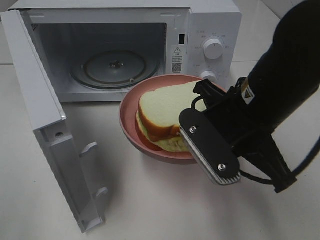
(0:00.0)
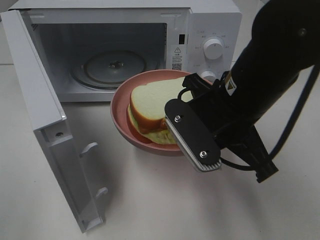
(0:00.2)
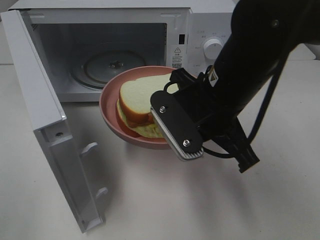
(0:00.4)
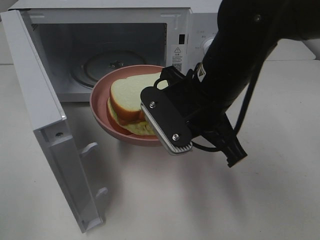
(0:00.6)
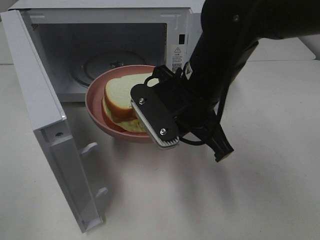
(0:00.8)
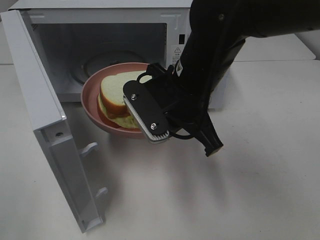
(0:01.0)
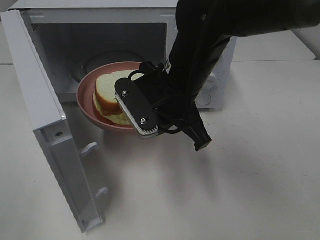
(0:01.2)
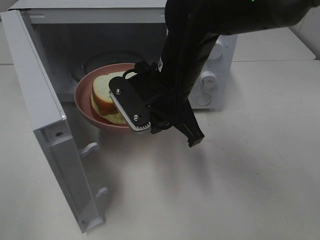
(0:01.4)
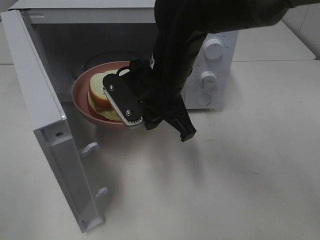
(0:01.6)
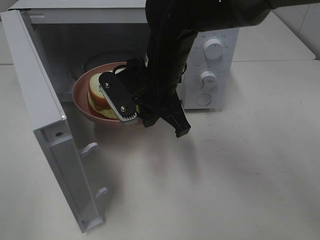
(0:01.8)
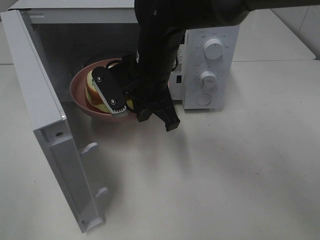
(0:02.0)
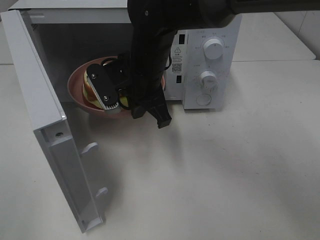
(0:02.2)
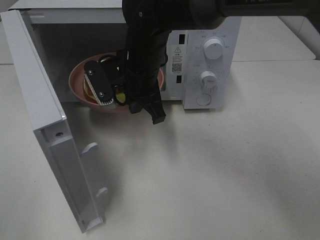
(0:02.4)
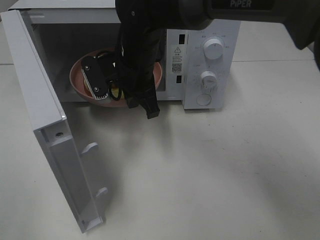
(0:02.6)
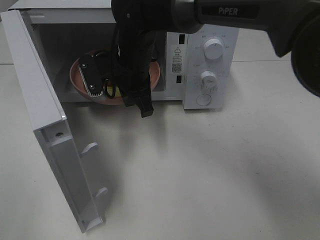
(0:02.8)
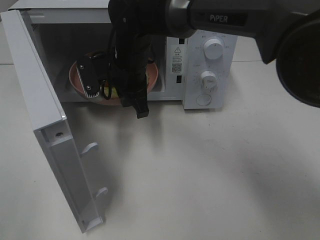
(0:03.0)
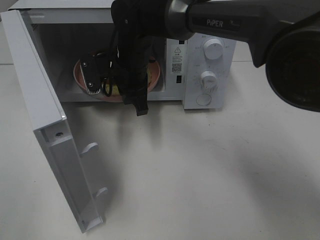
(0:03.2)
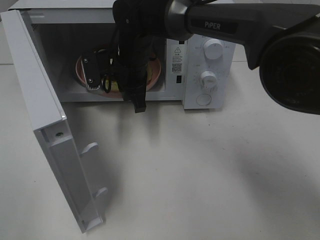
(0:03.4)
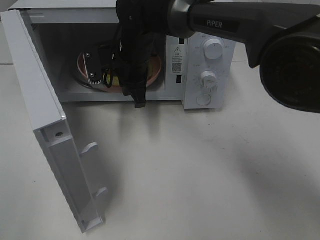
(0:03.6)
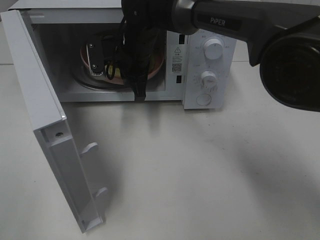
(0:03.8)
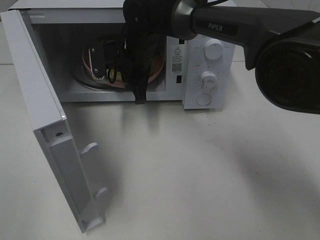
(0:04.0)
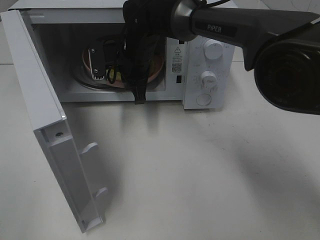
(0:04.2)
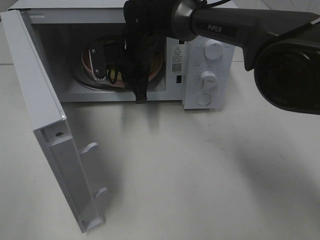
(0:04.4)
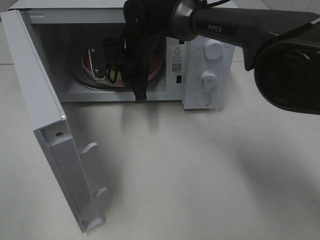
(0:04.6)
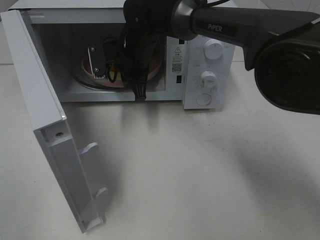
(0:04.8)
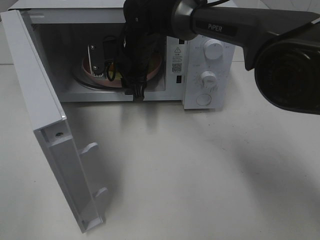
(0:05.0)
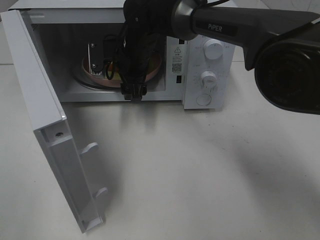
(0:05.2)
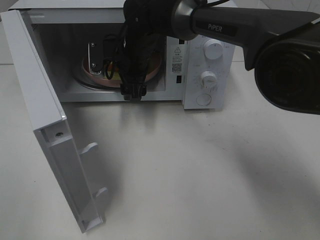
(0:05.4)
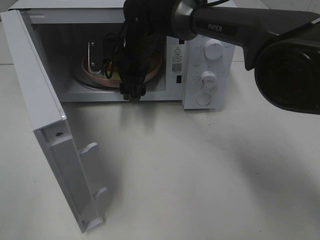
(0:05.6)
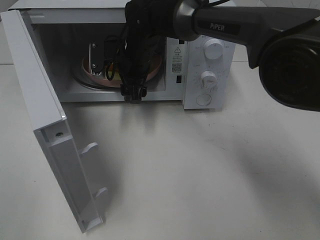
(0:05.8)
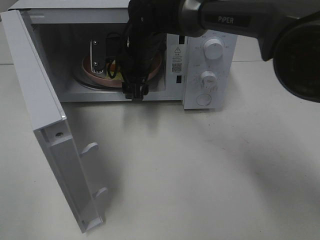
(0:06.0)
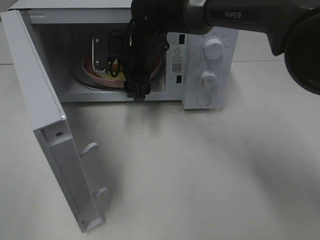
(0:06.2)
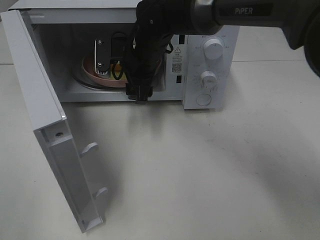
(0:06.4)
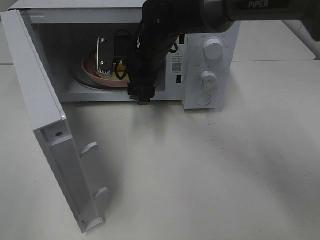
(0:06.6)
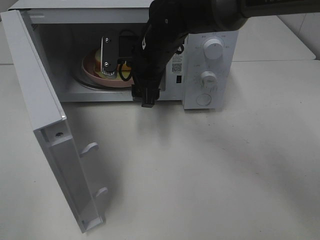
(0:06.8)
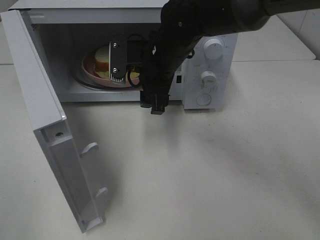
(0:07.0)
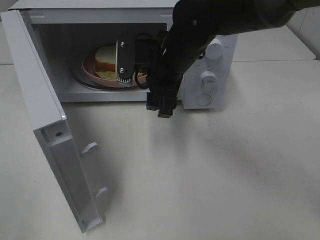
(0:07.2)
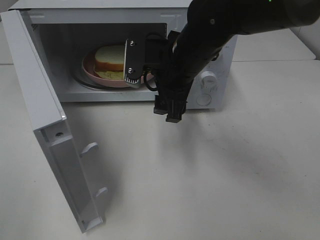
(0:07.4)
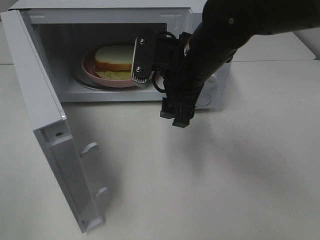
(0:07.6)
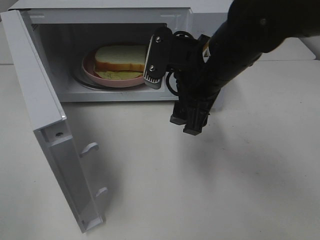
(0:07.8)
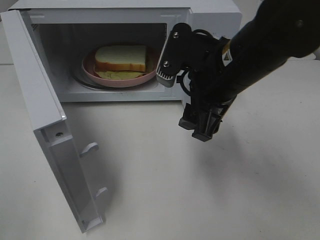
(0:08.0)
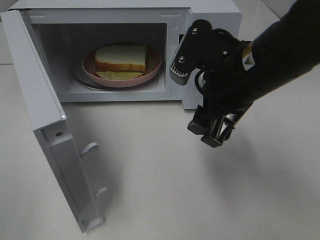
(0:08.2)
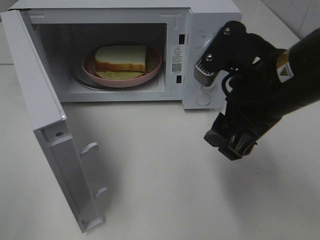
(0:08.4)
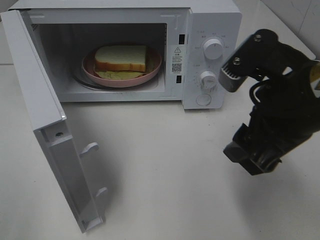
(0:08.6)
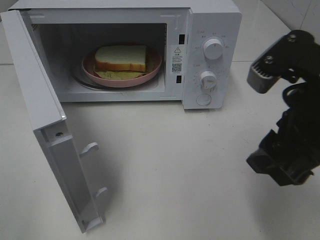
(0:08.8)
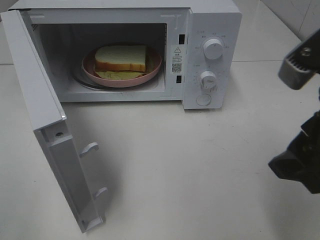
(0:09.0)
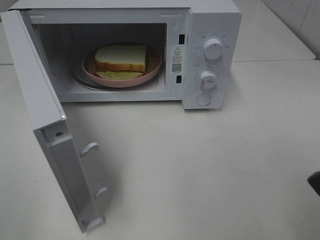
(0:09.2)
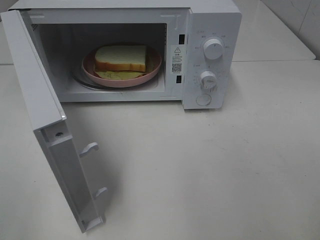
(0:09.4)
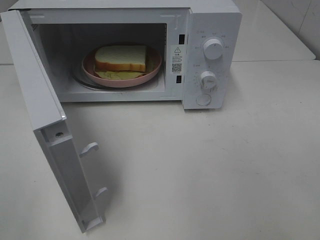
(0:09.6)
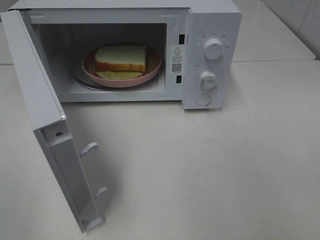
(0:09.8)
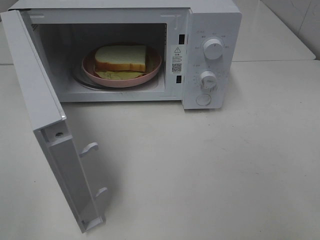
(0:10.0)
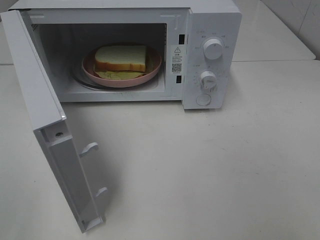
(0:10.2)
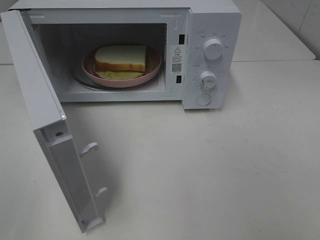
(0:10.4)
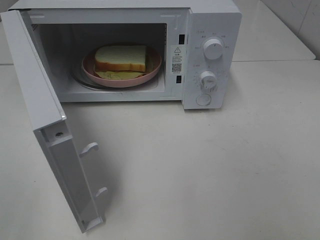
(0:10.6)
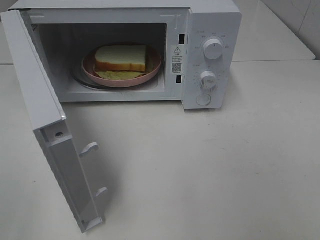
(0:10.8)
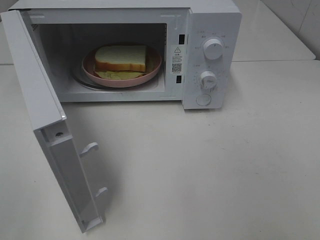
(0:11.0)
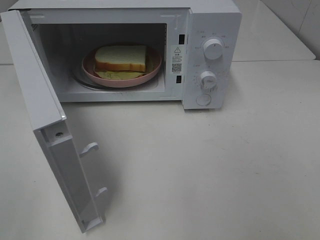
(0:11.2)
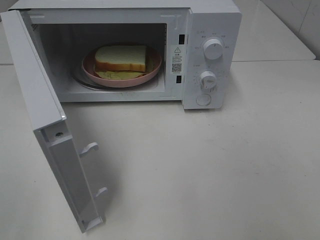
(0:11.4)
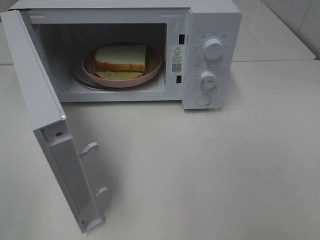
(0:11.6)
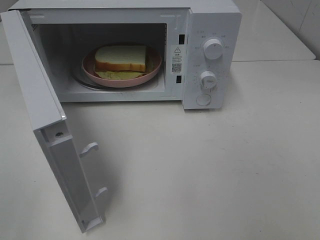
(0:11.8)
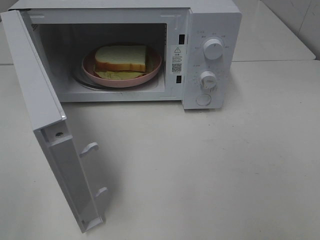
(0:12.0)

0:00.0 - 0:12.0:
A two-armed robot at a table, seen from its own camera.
Task of the whole recording: Heat Sandwich.
Step, 0:00.0 - 0:06.4: Right hand: place the plate in the microwave.
0:00.0 - 0:01.6: The right gripper travels forward and to the left by about 15 cm.
0:01.6 - 0:03.0: The right gripper is displaced forward and to the left by approximately 10 cm.
0:03.0 - 0:04.4: The right gripper shifts by about 5 cm.
0:04.4 - 0:06.0: The right gripper opens up.
0:06.0 - 0:07.6: The right gripper is displaced backward and to the right by roughly 15 cm.
0:07.6 - 0:09.0: The right gripper heads backward and to the right, covering roughly 20 cm.
0:09.0 - 0:10.4: The right gripper is displaced backward and to the right by some 15 cm.

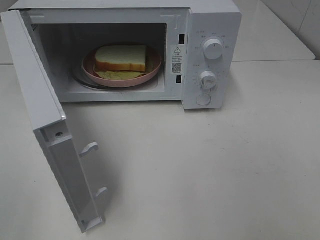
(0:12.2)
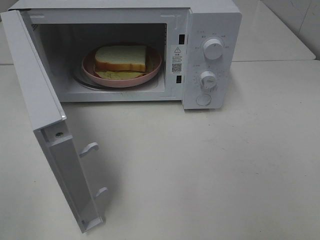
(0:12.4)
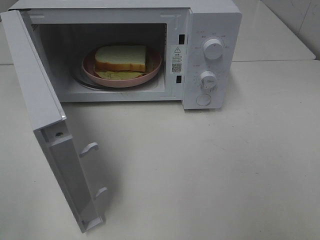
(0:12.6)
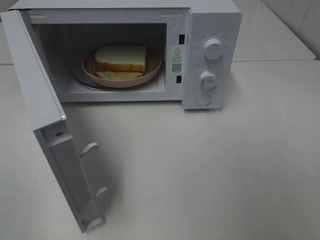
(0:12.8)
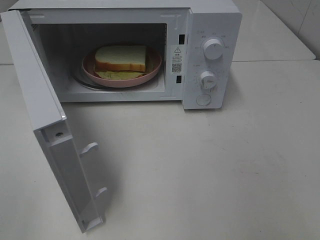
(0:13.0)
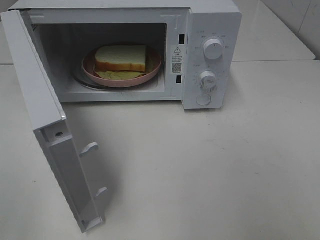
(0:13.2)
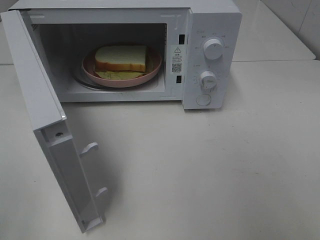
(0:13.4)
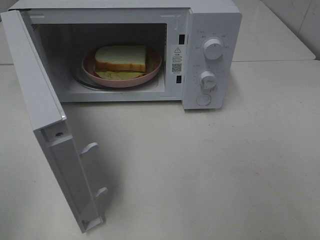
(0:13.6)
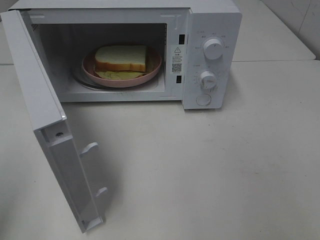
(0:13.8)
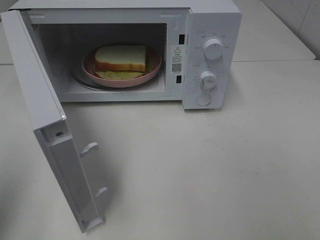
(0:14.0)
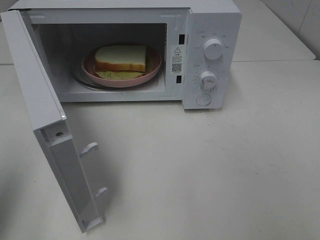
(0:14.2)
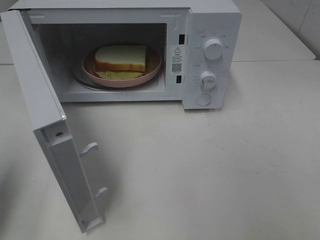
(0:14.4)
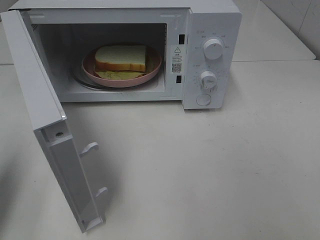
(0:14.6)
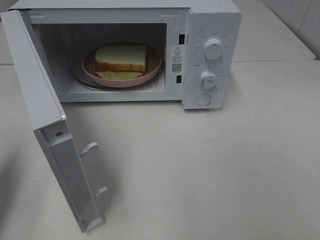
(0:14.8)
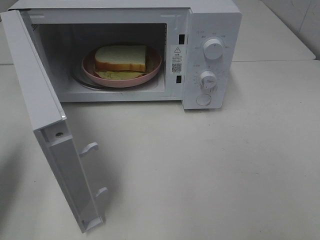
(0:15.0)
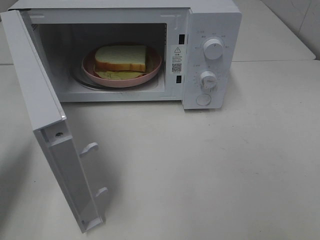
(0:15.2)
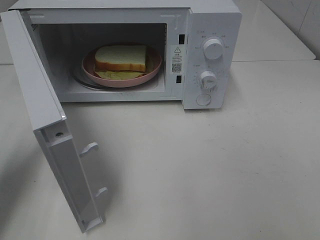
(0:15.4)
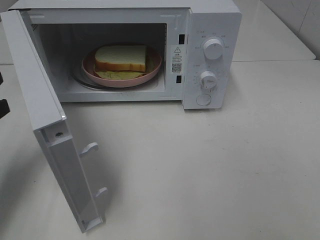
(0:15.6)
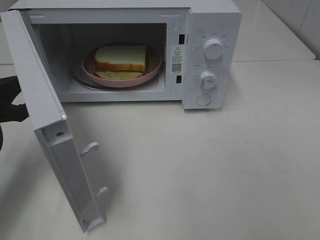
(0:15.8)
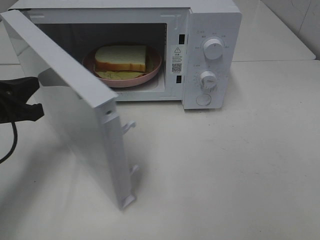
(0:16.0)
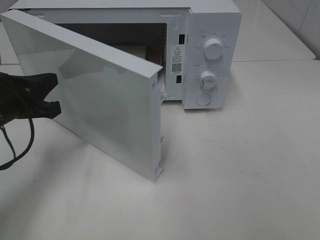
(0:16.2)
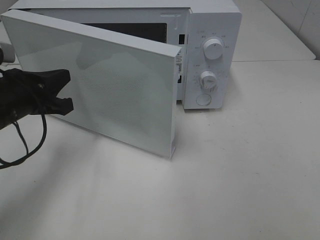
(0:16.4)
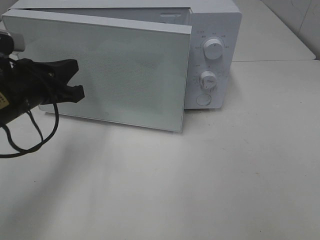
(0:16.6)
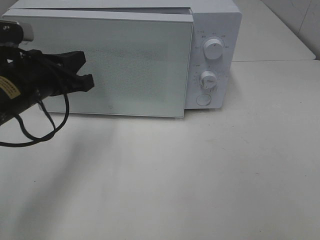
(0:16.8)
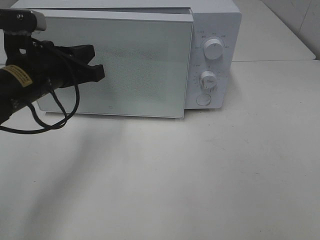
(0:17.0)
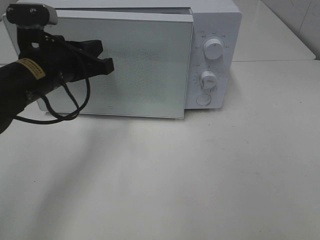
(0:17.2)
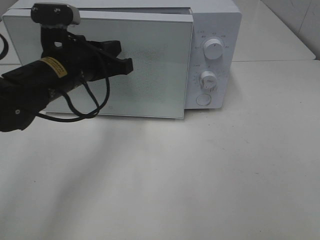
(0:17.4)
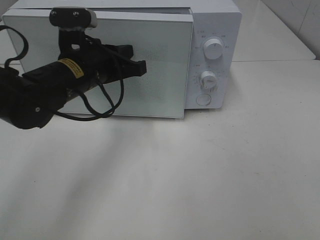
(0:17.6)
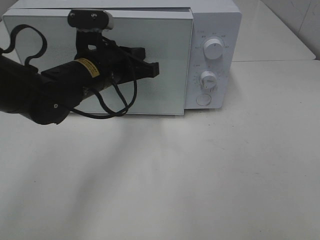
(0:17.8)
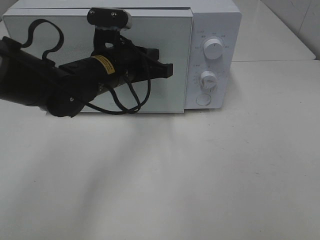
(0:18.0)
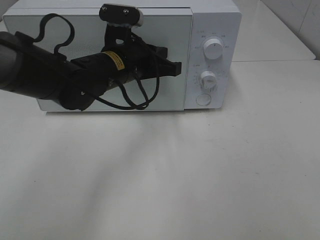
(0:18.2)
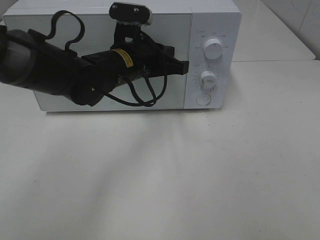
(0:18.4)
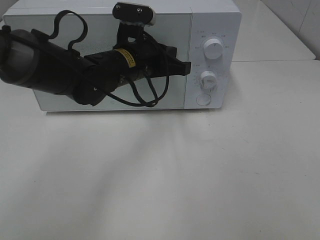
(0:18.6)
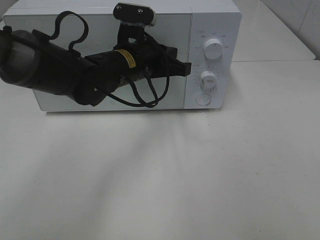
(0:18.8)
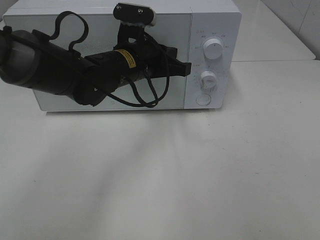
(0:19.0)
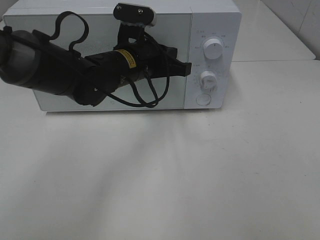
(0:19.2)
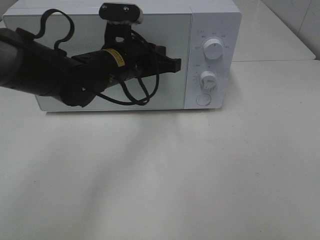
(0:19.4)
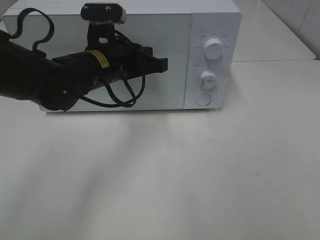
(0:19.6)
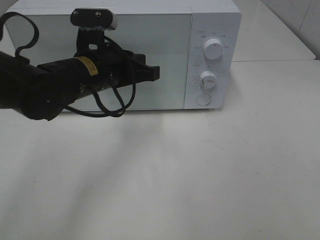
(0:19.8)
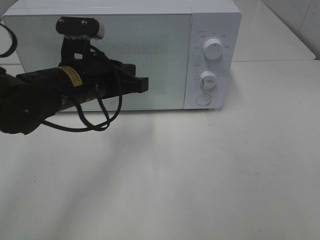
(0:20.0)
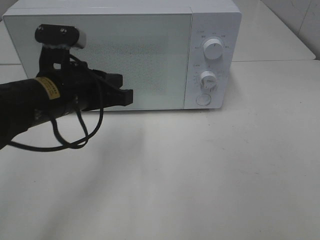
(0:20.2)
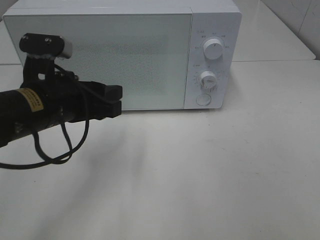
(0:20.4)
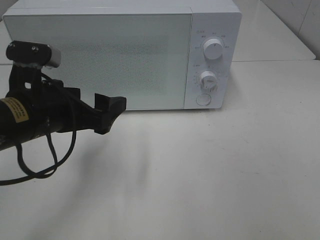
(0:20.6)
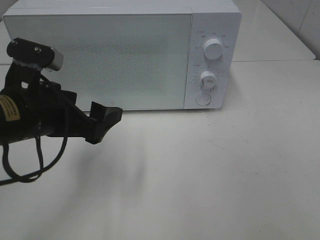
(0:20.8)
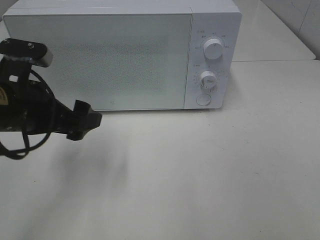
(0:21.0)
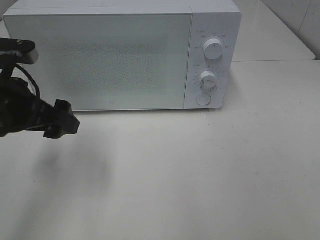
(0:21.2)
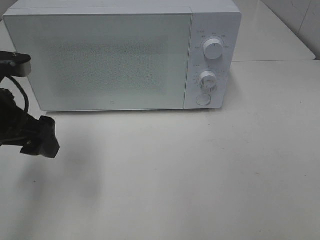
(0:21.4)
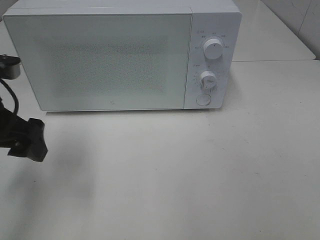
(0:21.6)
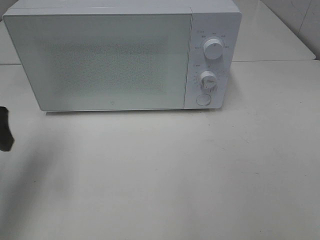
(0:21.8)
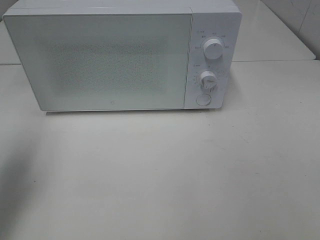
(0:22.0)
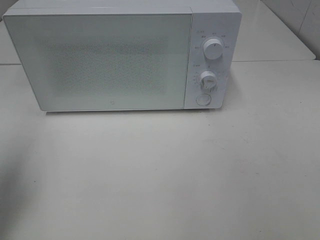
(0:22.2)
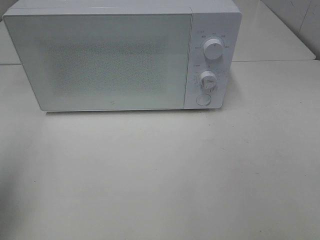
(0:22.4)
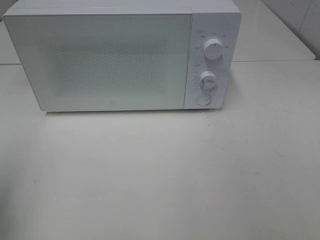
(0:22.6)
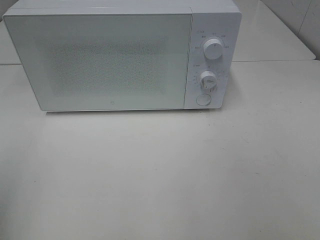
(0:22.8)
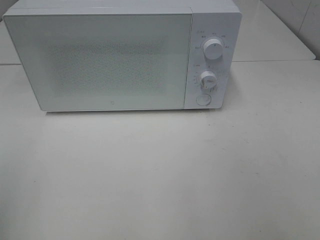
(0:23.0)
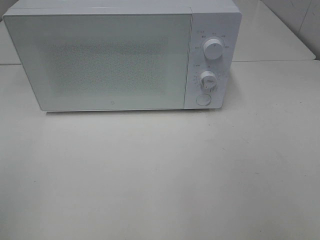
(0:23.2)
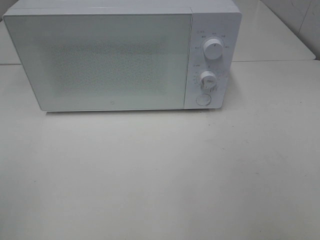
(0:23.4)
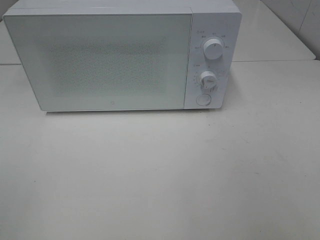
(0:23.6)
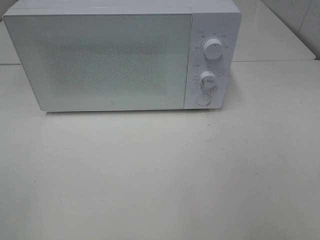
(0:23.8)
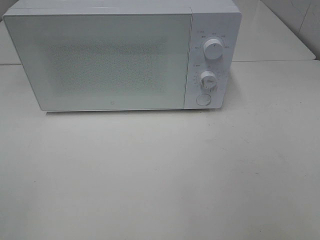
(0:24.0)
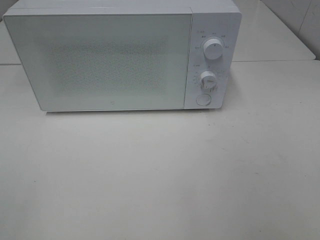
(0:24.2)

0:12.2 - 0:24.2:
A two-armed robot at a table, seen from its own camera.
Task of the whole recording: Heat Sandwich.
Step, 0:12.2 - 0:19.8: Left hand: close the microwave door.
0:13.8 - 0:15.2: The left gripper is displaced forward and downward by roughly 15 cm.
0:15.2 - 0:16.6: The left gripper moves to the right and forward, about 15 cm.
0:16.6 - 0:18.2: The left gripper travels to the right and forward by approximately 15 cm.
0:18.2 - 0:19.8: The left gripper moves about 5 cm.
0:19.8 - 0:21.2: The left gripper goes about 15 cm to the left and backward, and opens its fingers.
0:21.2 - 0:22.6: The left gripper shifts roughly 20 cm backward, to the left and upward.
0:22.6 - 0:24.2: The left gripper goes about 15 cm backward.
